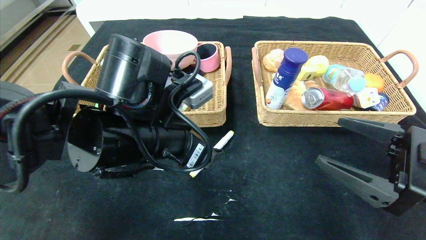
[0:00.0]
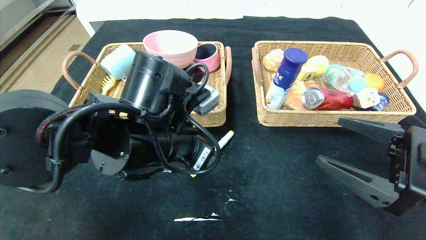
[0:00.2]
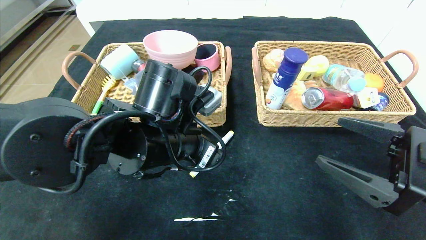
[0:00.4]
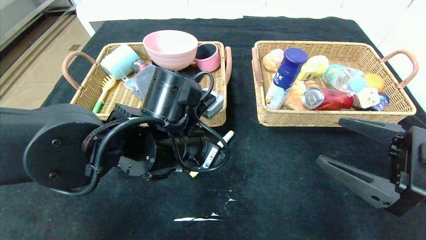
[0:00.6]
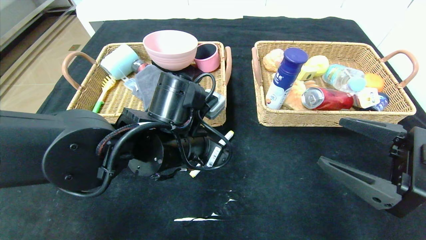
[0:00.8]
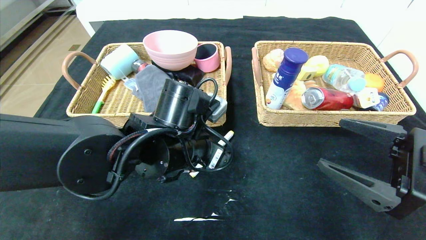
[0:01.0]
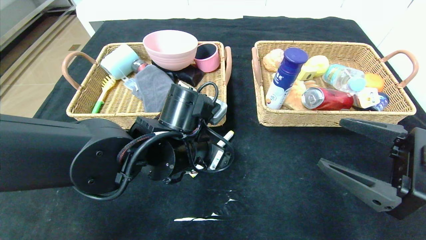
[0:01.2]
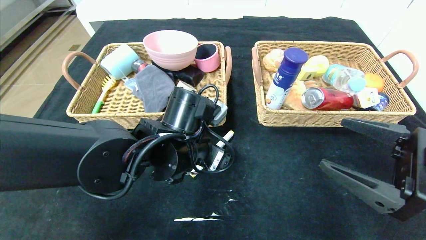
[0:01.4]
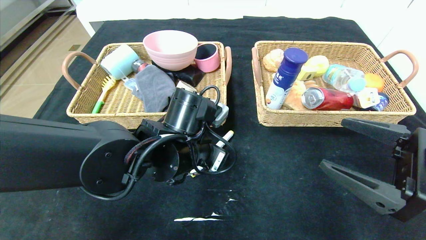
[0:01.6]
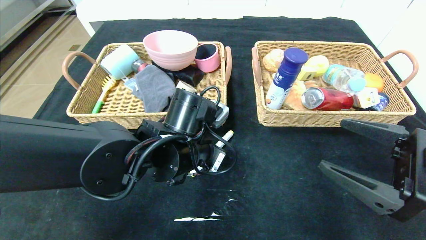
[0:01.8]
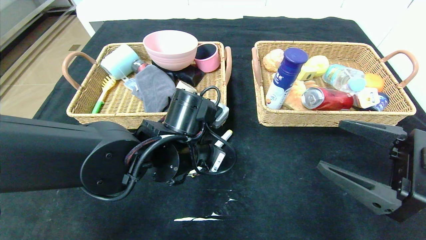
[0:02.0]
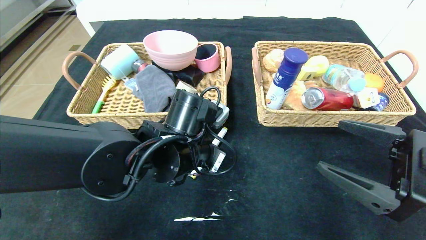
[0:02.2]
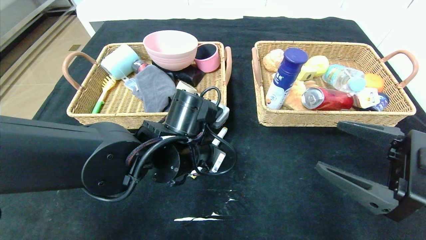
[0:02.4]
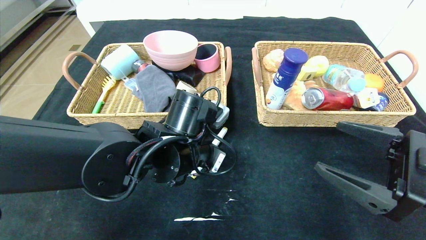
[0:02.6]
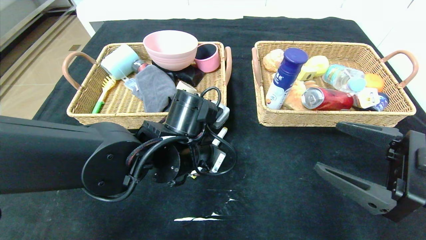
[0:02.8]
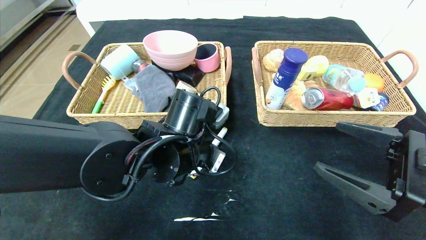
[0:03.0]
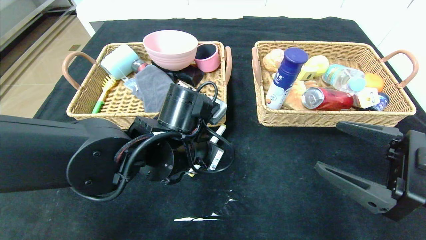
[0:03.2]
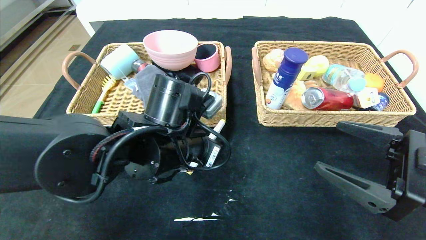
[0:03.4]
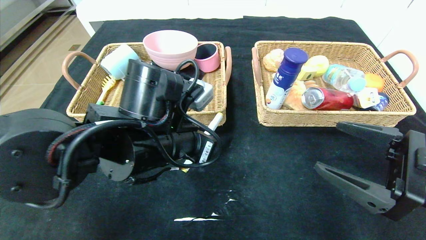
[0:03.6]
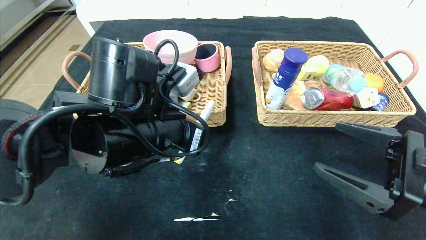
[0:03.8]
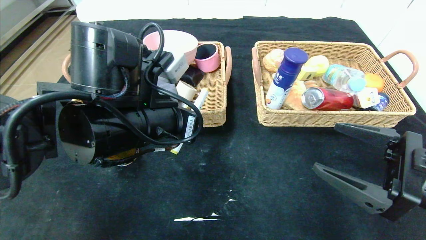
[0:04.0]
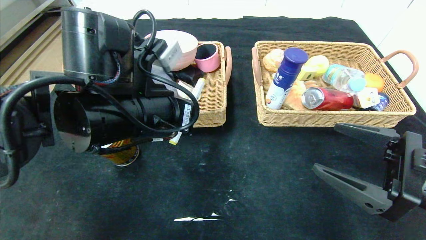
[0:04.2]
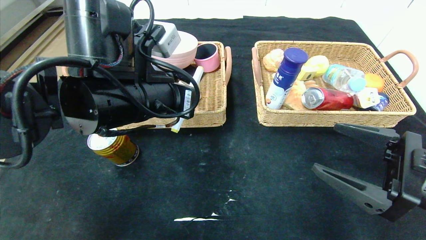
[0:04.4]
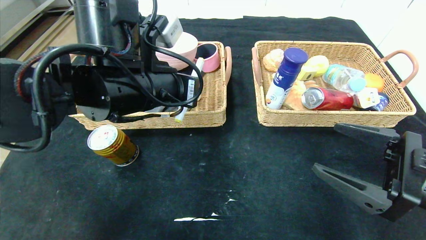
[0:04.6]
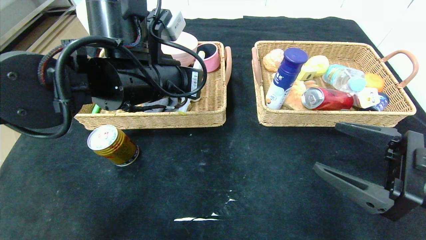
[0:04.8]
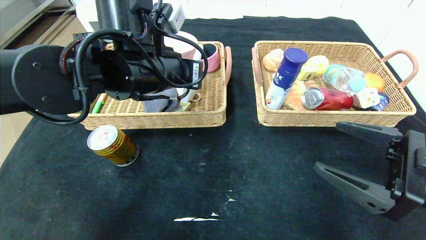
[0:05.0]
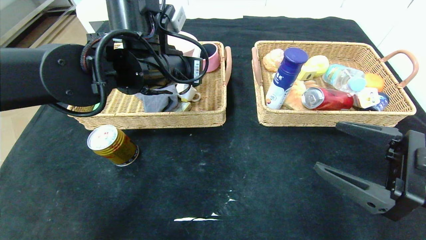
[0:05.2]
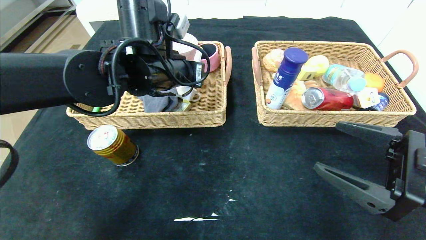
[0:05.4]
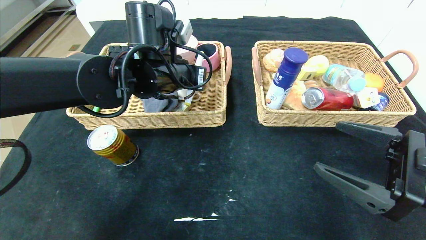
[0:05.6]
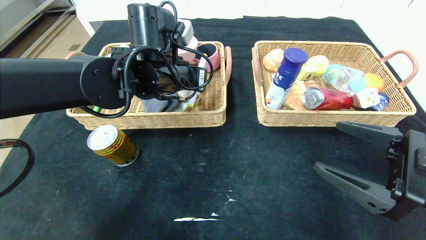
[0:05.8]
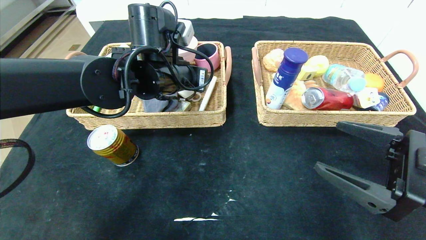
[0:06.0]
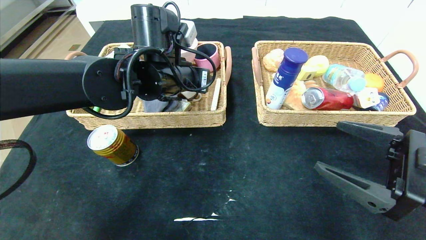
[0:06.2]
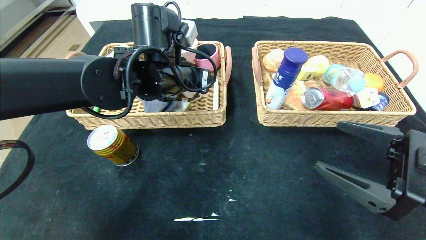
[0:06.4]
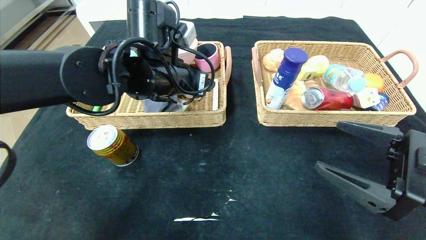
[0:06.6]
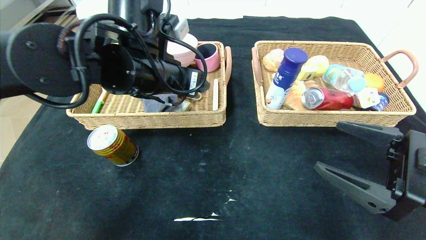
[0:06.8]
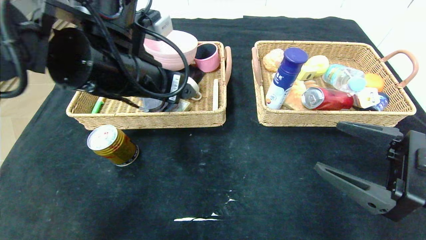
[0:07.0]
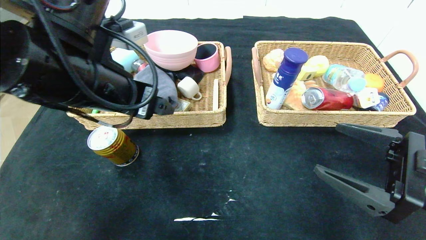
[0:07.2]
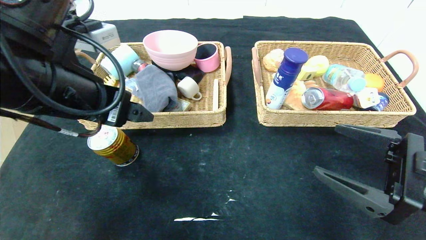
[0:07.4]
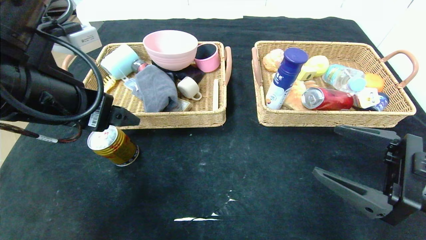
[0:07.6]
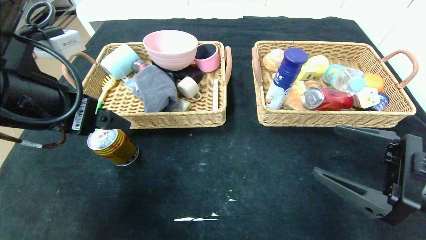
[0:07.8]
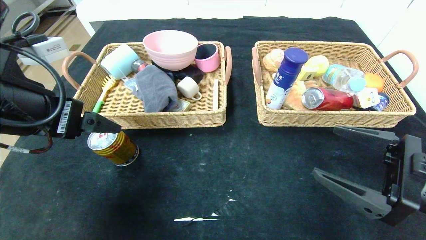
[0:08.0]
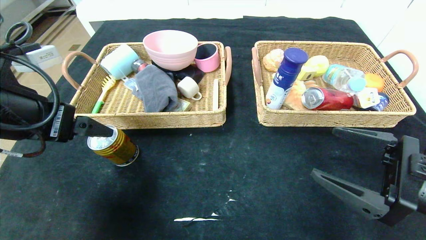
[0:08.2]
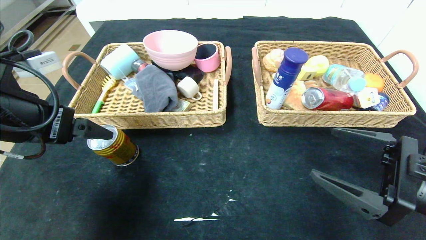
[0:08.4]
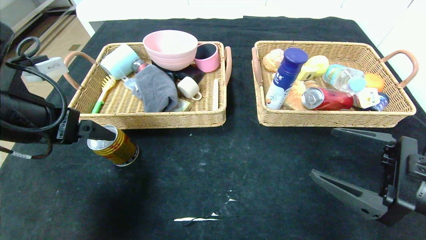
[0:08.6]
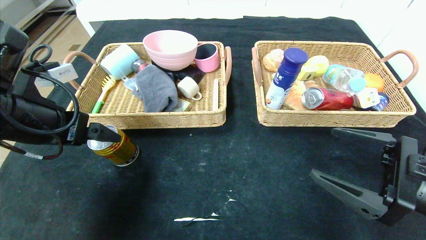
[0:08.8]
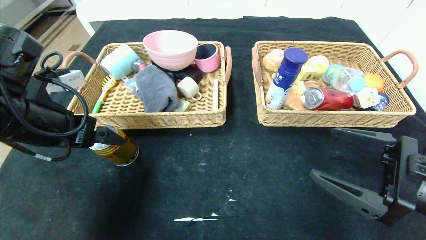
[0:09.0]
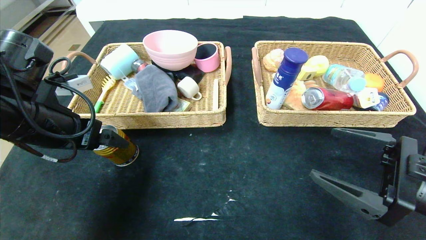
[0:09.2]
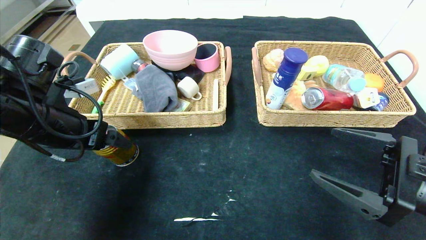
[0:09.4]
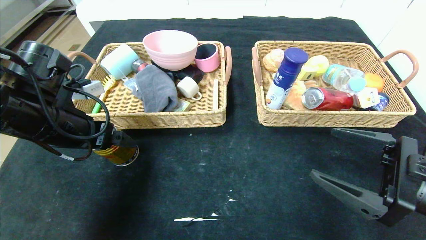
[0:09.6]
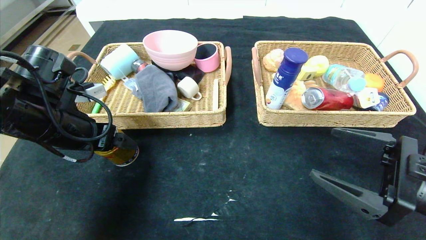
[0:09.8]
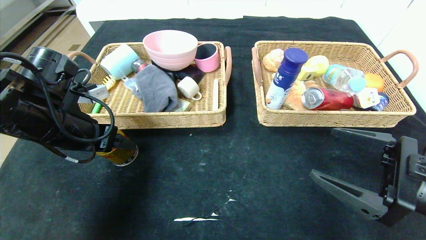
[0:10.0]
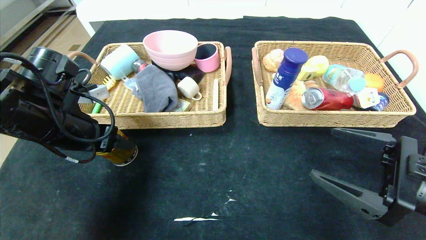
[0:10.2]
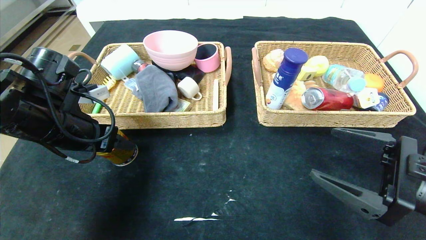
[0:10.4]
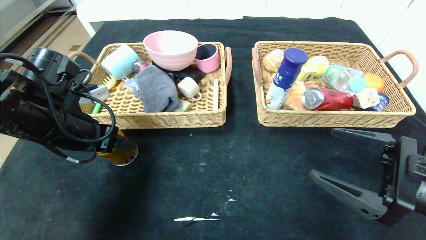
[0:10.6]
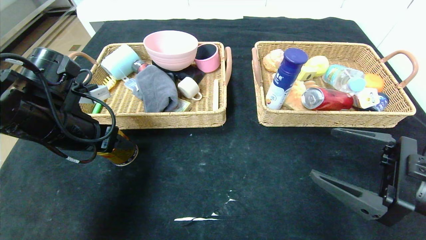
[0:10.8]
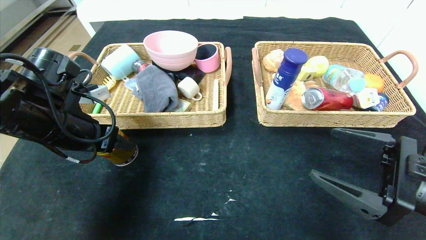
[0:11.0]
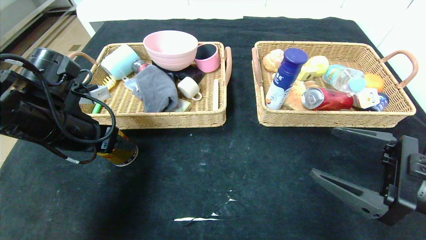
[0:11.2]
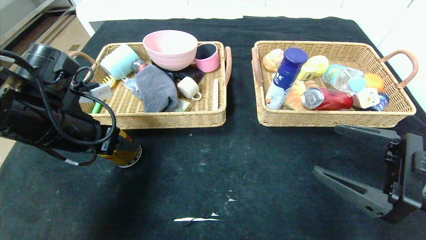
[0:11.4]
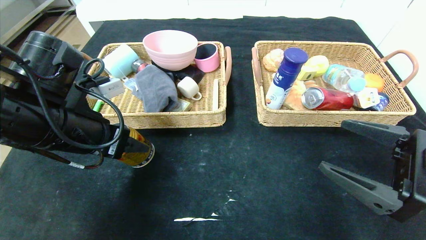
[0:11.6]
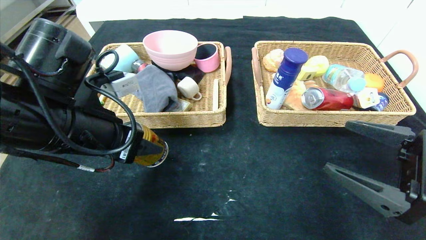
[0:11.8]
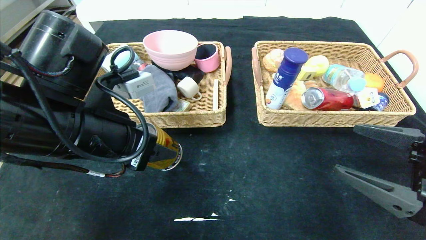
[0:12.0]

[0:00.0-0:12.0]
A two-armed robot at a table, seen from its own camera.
Step, 0:00.0 to 0:06.0: Grasp the yellow marker and put it in the left basket.
0:00.0 to 0:01.6: The left gripper moves downward, roughly 5 cm.
0:01.6 to 0:03.0: The left gripper closes its fingers.
0:03.0 to 0:04.4: The left gripper shifts some 10 cm upward and to the left.
0:04.4 to 0:06.0: The left gripper shifts some 10 cm forward, and opens up.
0:06.0 to 0:07.6: The left gripper goes some 20 cm backward and to the left, and opens its fingers.
0:07.6 to 0:09.0: The left gripper shifts approximately 5 cm to the left.
0:09.0 to 0:10.4: The grippers stay close to where they were, moving slightly.
0:10.4 to 0:12.0: The left gripper travels to the right and backward by roughly 10 cm.

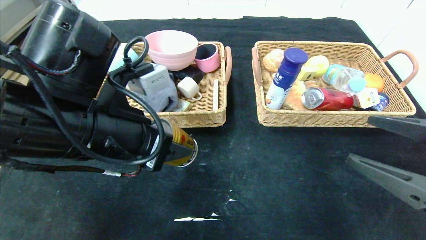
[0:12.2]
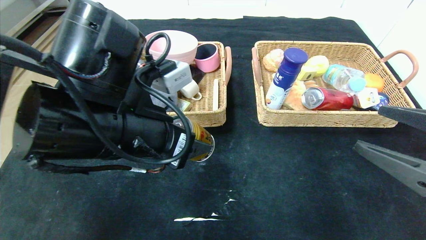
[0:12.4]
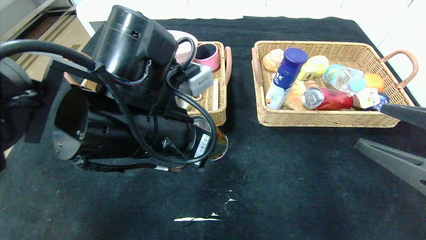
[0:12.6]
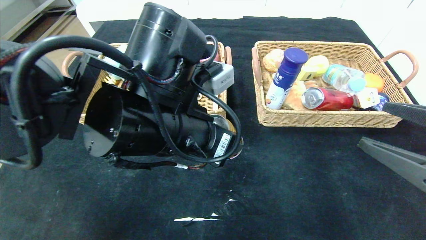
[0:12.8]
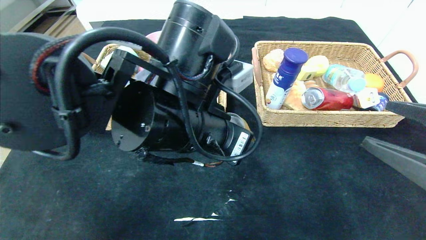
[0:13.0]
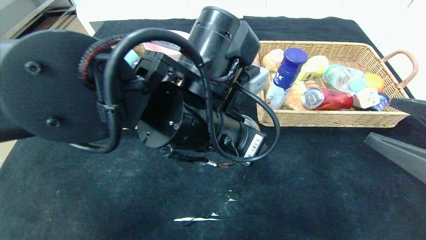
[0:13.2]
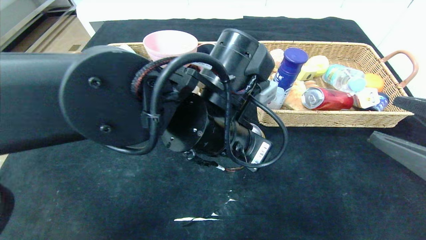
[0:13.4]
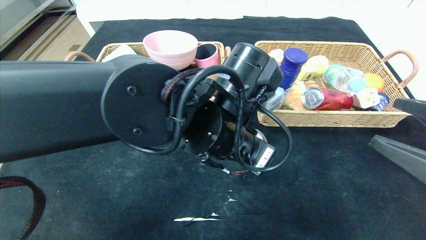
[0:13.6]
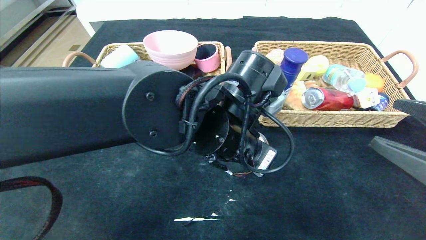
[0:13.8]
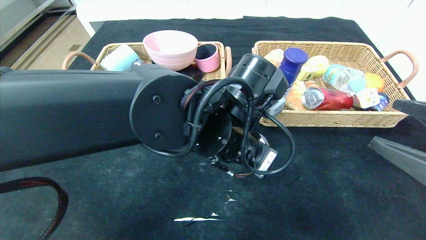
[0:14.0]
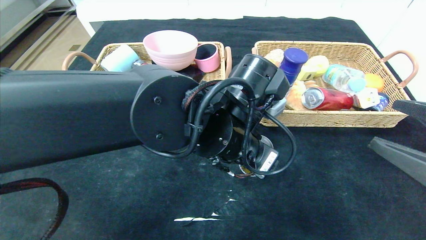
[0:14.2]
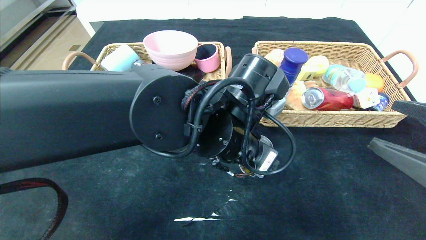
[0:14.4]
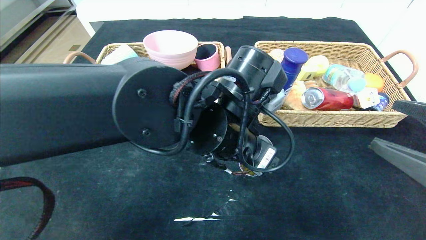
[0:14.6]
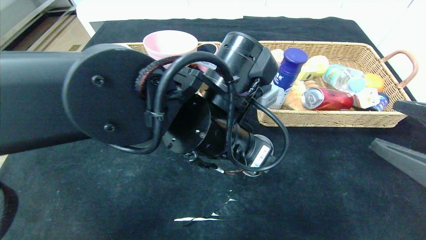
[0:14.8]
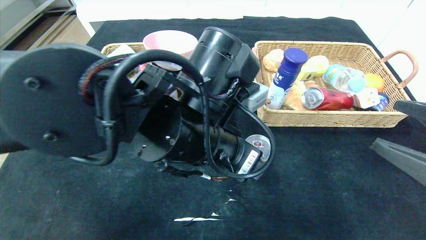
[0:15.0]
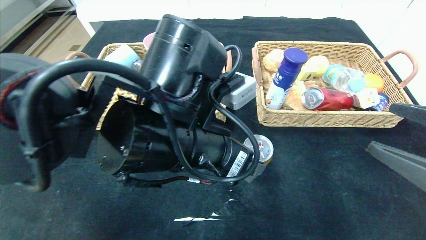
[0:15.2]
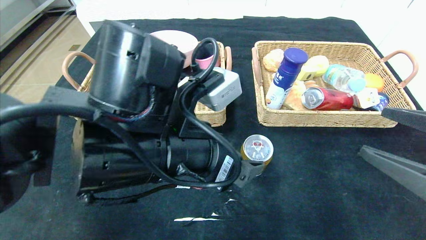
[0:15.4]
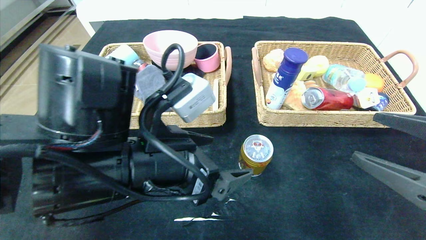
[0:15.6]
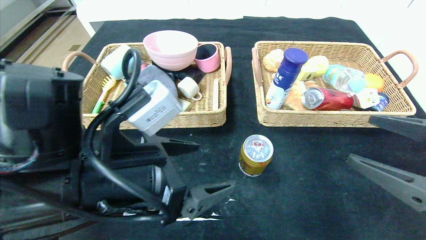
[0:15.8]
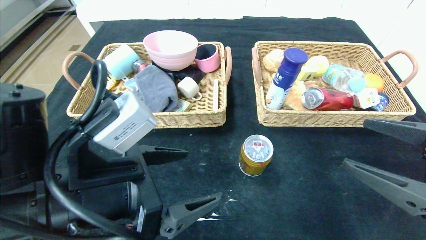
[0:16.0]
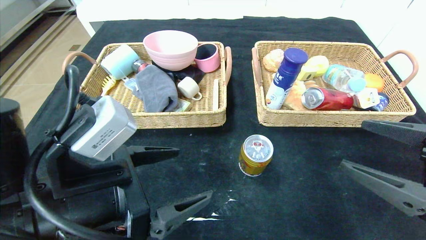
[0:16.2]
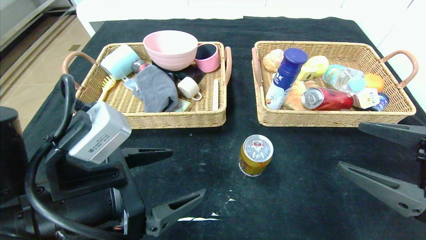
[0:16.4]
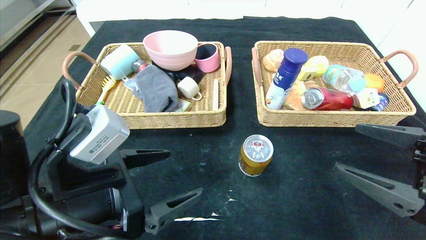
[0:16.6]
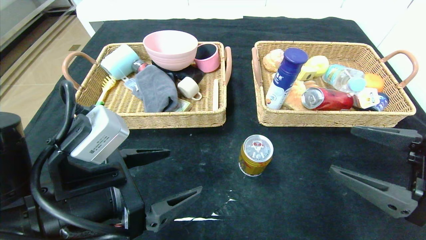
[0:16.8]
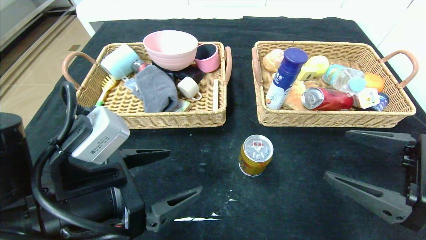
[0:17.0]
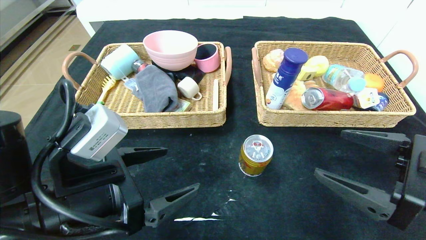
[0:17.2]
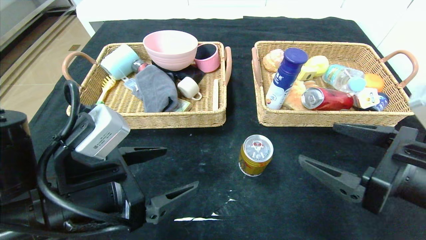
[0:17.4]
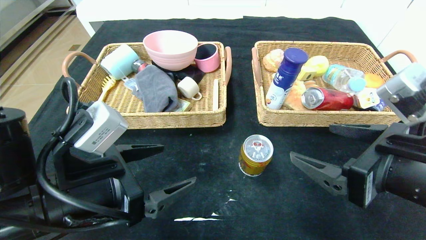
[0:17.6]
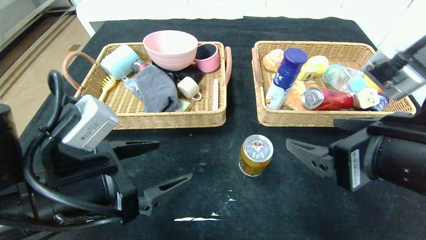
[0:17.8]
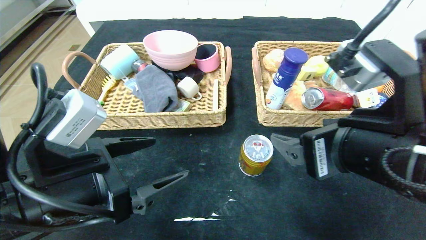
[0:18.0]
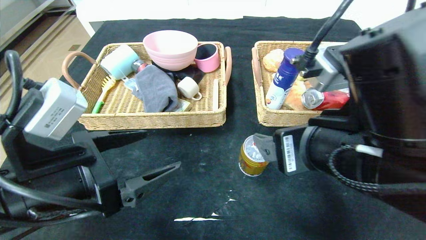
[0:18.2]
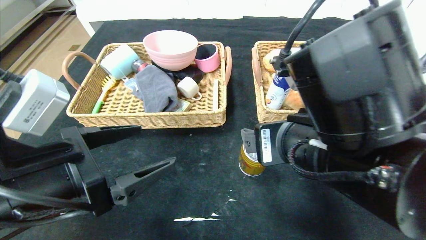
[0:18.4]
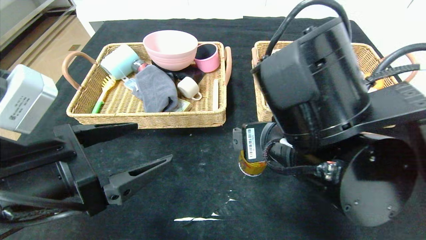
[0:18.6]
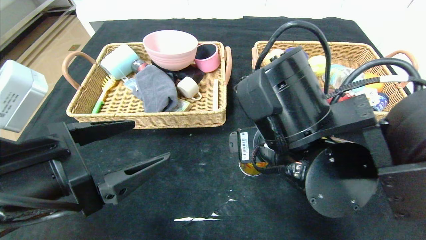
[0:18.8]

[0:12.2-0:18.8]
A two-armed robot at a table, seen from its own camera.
Step, 0:12.2 to 0:14.6: Place the Red Bull in the center of the table.
0:12.2 to 0:13.8: The left gripper travels to the right by about 15 cm.
0:13.8 to 0:15.4: The left gripper moves to the left and backward, roughly 10 cm.
0:15.4 to 0:17.2: The left gripper shifts some 10 cm to the left.
0:17.2 to 0:18.8: The right gripper shifts about 20 cm to the left.
